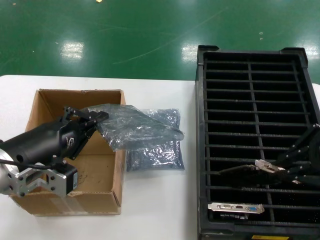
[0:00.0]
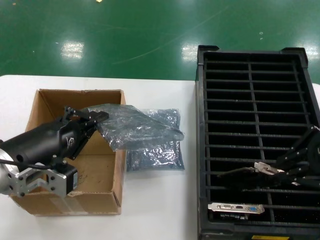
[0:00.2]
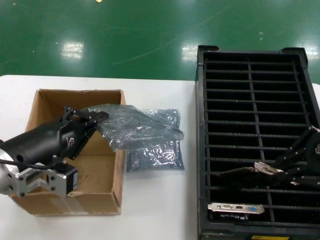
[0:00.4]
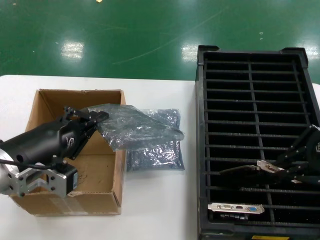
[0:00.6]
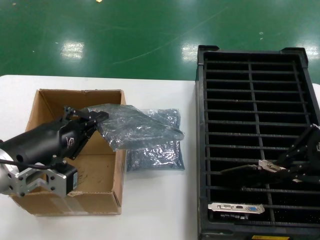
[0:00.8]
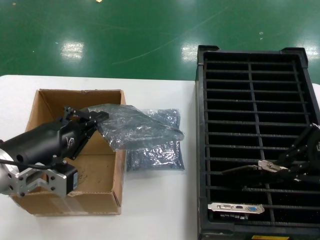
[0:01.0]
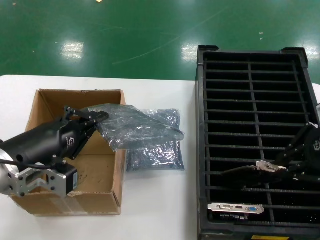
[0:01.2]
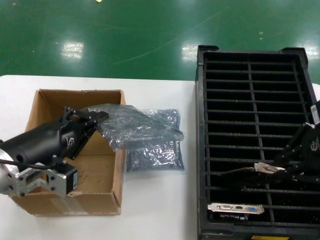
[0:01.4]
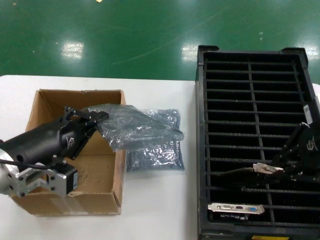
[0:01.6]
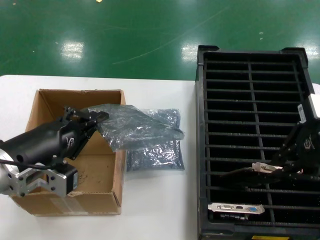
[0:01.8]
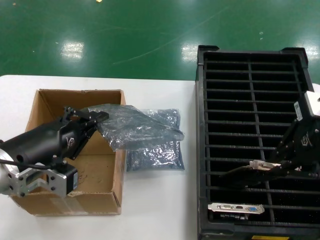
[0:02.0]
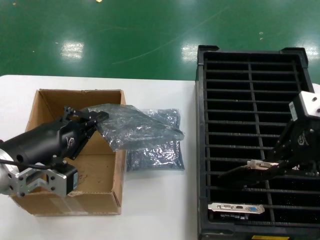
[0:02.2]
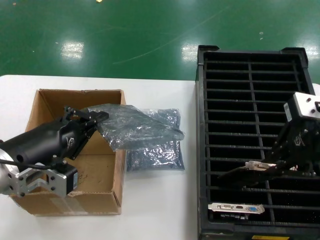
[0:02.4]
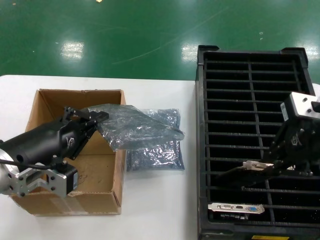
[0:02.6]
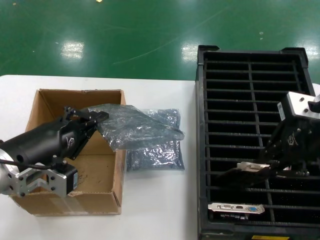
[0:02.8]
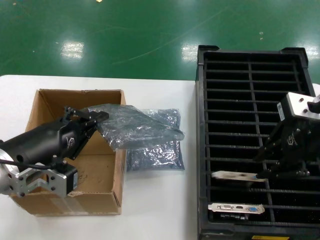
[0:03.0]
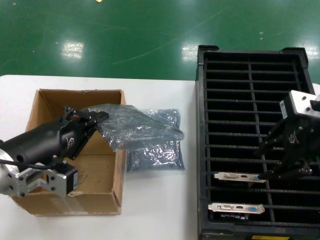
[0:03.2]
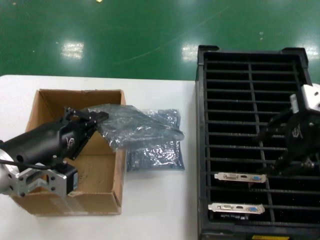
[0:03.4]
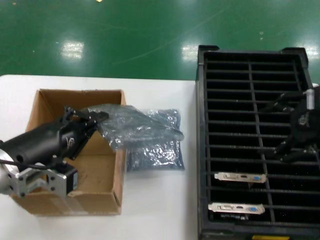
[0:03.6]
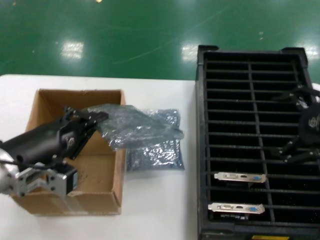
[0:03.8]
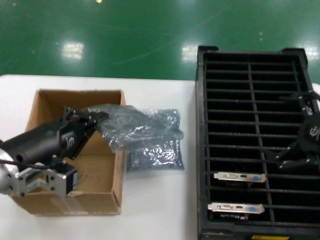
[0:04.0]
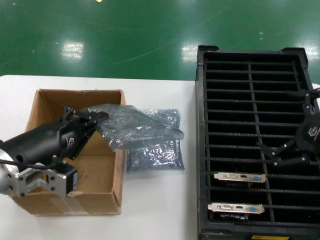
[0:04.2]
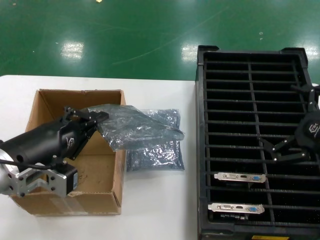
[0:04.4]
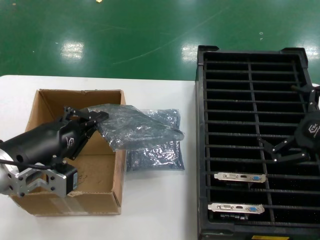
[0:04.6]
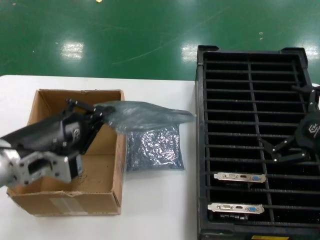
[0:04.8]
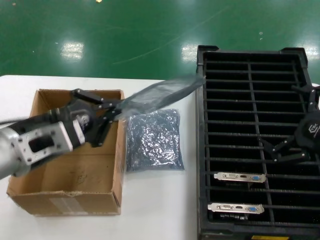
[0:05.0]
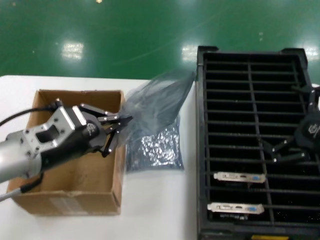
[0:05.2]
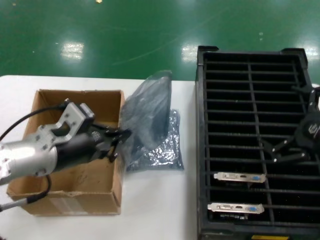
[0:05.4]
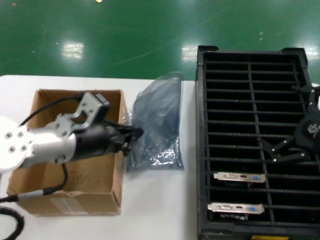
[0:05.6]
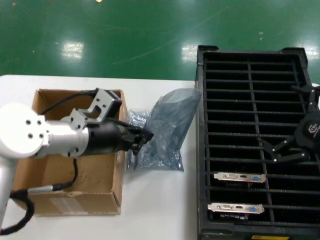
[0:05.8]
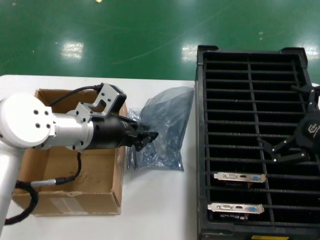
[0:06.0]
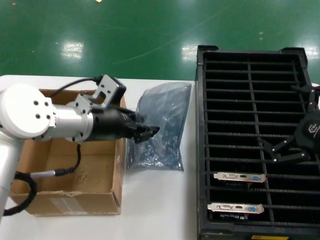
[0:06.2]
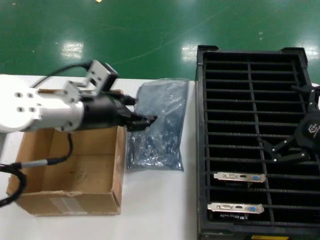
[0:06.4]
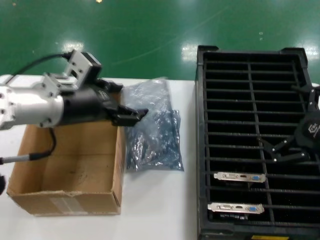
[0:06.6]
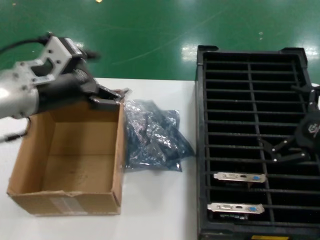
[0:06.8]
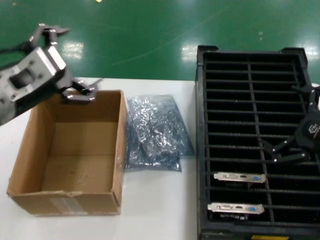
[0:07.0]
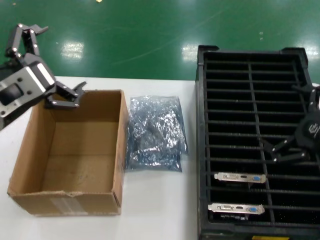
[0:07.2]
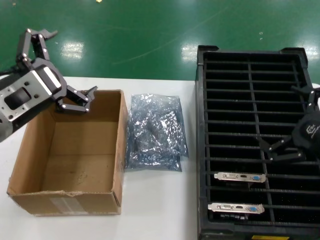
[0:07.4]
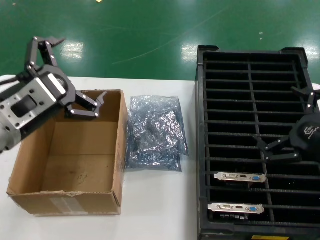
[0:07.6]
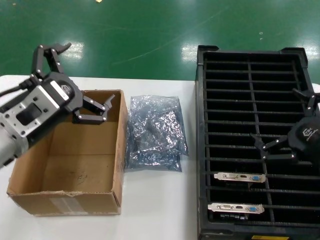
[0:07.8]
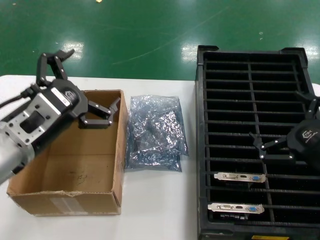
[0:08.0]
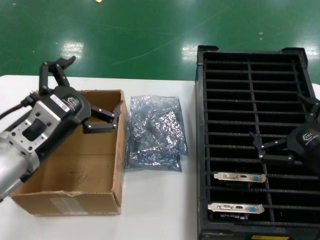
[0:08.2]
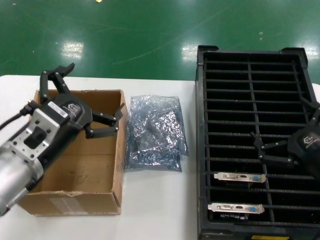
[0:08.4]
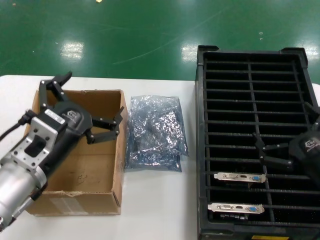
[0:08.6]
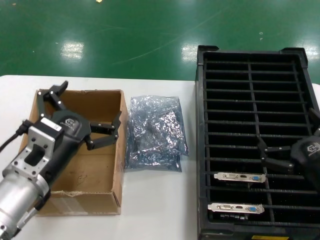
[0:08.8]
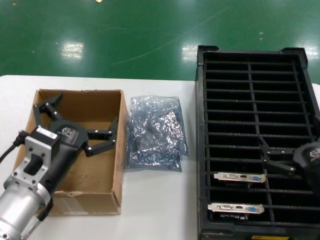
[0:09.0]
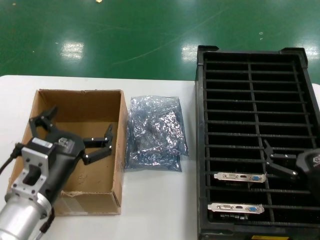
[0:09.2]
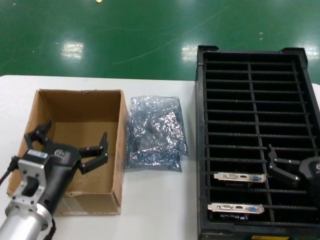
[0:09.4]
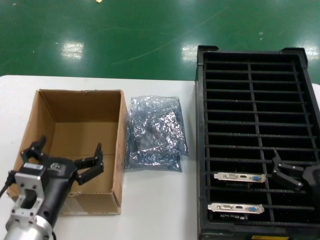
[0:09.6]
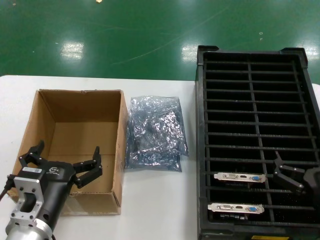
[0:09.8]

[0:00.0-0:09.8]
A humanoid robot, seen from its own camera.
Task of the whole recording: take out graphics card from box remove packaging put into black container.
Step, 0:00.0 to 0:03.6: Place the hard disk in the hard disk enclosure.
Step, 0:03.8 to 0:08.4: Place the down the bag.
0:00.0 to 0:01.4: There are only small adjustments of the hands.
0:01.4 to 0:02.8: The right hand changes place by roughly 5 cm.
0:02.8 to 0:04.2: The right hand travels downward, to the right and backward by about 15 cm.
0:04.2 to 0:05.6: The left hand goes about 10 cm forward.
0:05.6 to 0:07.0: The left hand heads upward and backward, covering about 10 cm.
0:07.0 to 0:08.4: The right hand goes roughly 5 cm downward, while the left hand travels downward by about 10 cm.
0:08.4 to 0:09.8: The left hand heads downward, covering roughly 15 cm. The right hand travels downward by some 10 cm.

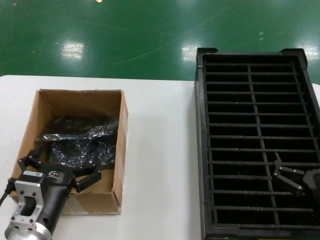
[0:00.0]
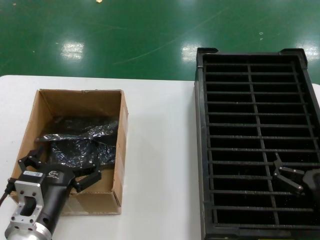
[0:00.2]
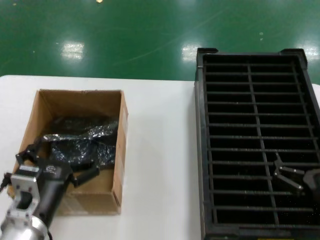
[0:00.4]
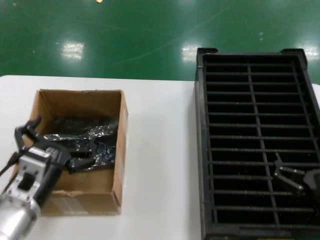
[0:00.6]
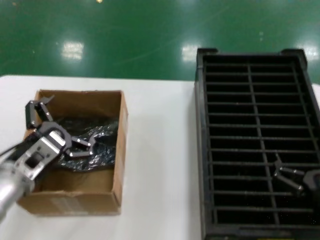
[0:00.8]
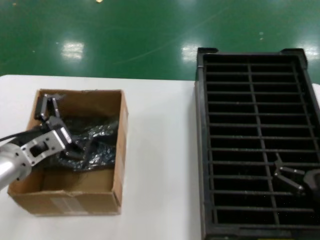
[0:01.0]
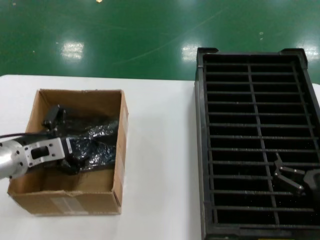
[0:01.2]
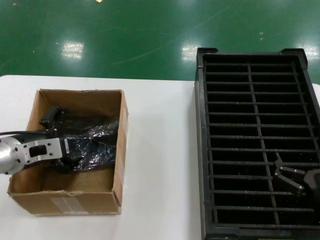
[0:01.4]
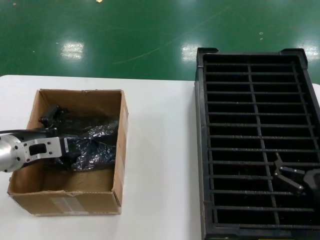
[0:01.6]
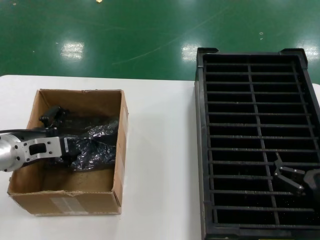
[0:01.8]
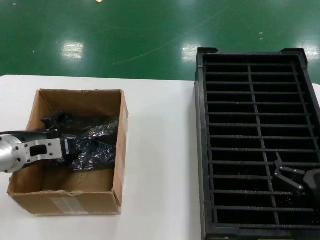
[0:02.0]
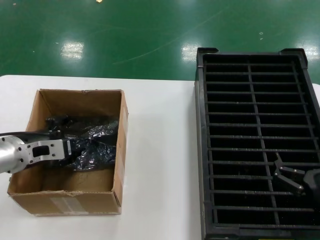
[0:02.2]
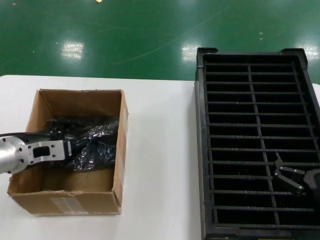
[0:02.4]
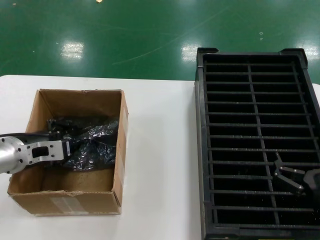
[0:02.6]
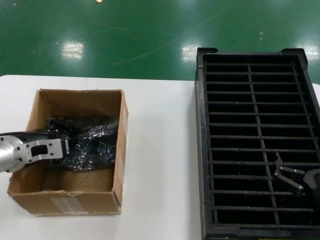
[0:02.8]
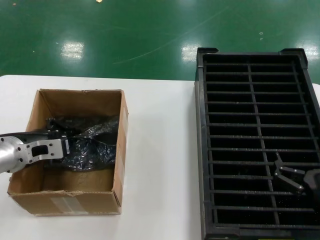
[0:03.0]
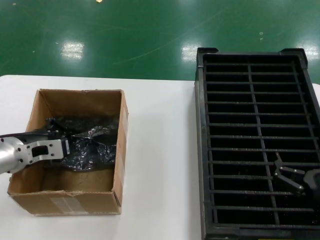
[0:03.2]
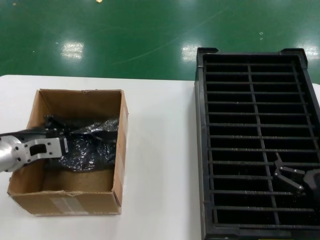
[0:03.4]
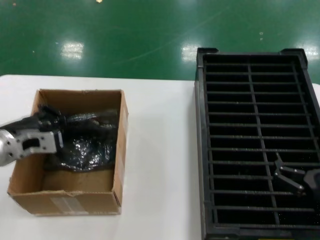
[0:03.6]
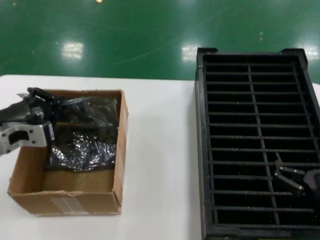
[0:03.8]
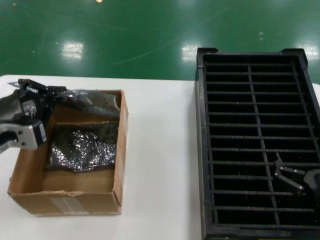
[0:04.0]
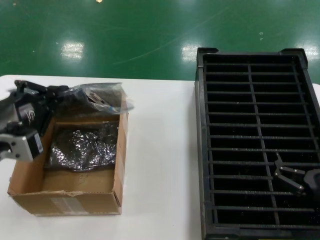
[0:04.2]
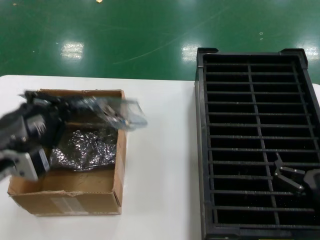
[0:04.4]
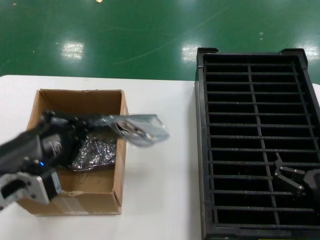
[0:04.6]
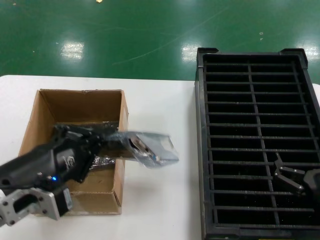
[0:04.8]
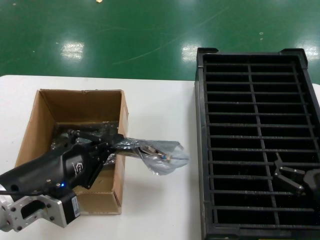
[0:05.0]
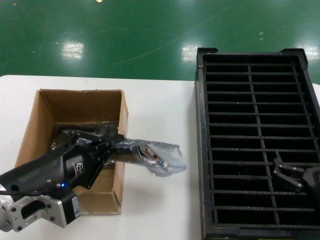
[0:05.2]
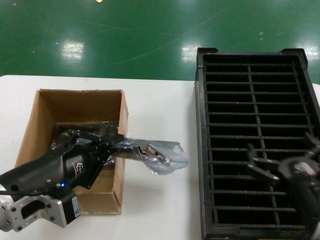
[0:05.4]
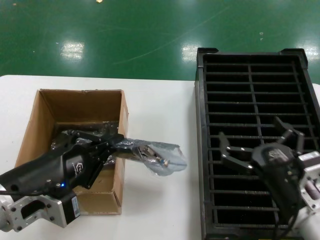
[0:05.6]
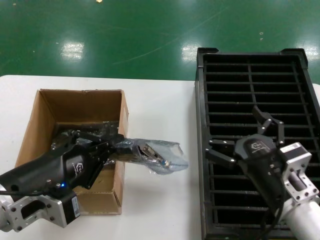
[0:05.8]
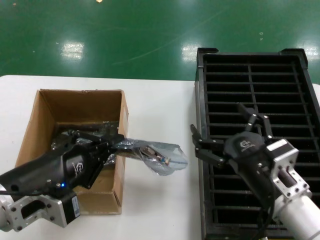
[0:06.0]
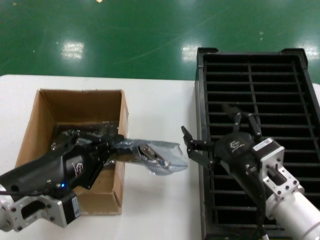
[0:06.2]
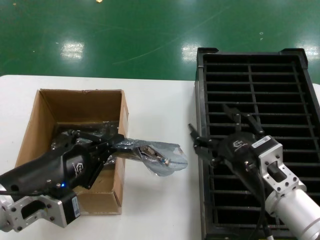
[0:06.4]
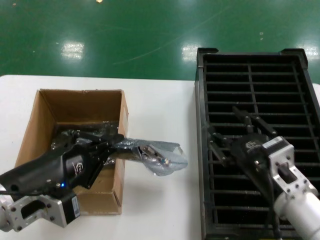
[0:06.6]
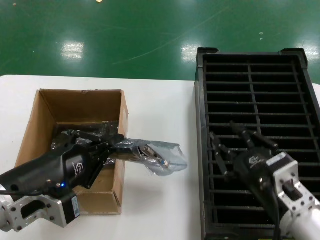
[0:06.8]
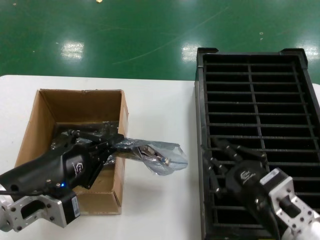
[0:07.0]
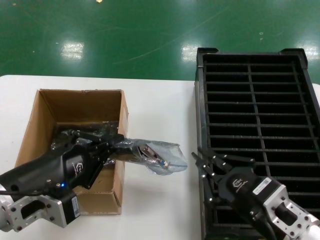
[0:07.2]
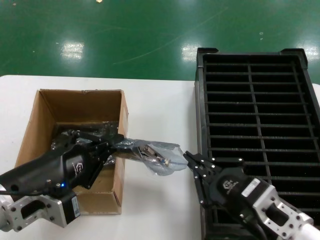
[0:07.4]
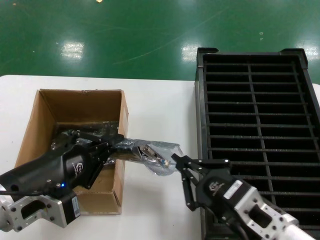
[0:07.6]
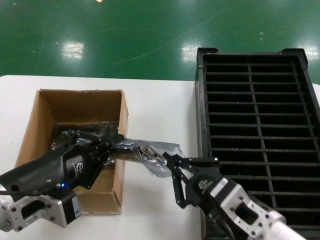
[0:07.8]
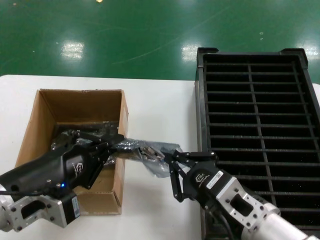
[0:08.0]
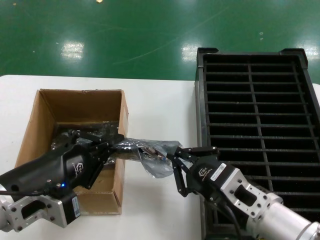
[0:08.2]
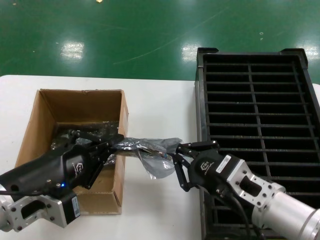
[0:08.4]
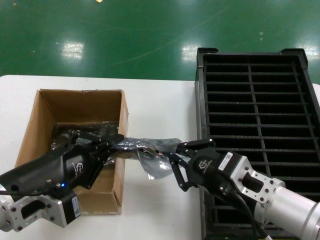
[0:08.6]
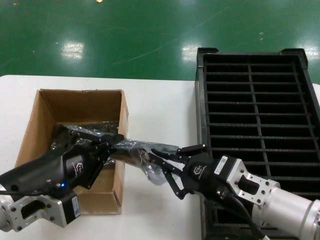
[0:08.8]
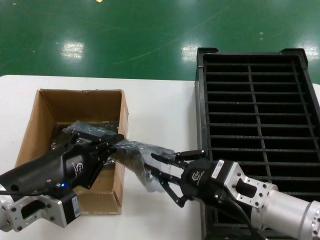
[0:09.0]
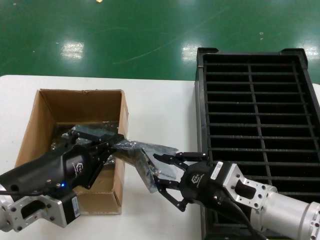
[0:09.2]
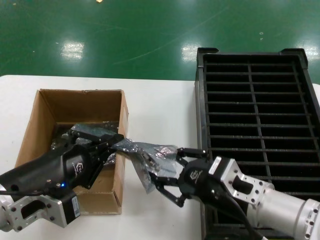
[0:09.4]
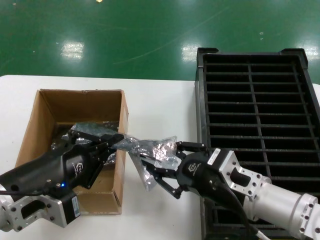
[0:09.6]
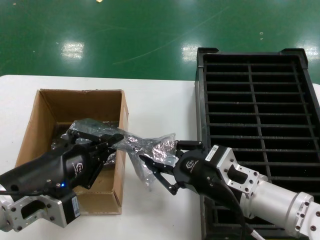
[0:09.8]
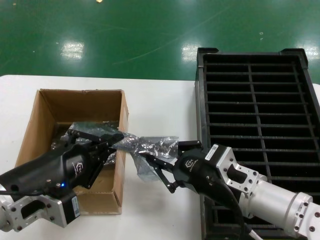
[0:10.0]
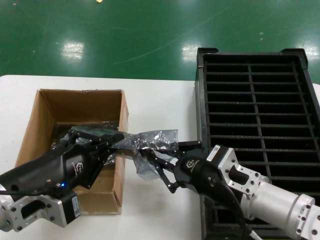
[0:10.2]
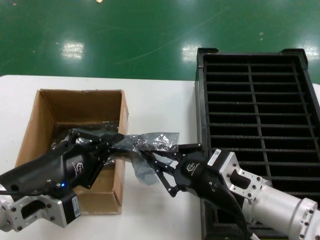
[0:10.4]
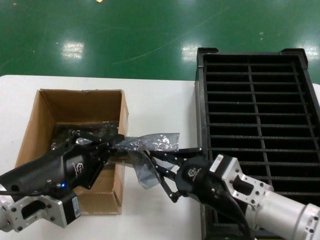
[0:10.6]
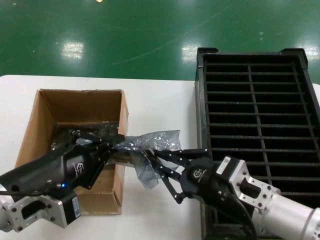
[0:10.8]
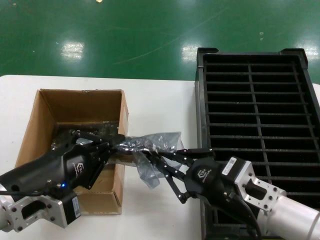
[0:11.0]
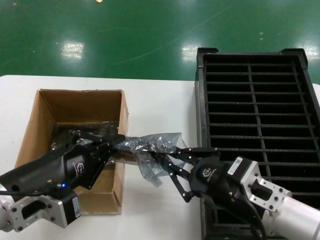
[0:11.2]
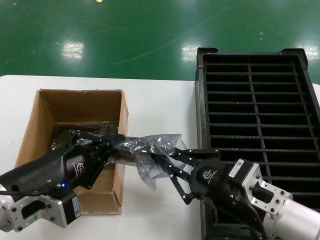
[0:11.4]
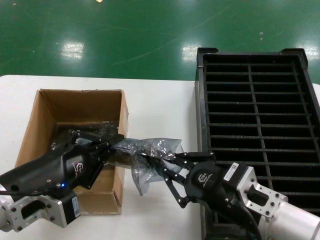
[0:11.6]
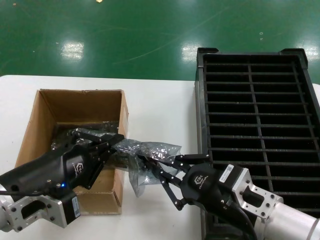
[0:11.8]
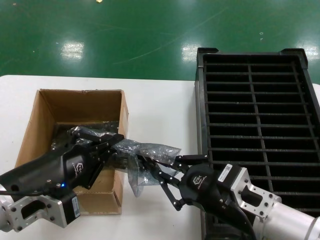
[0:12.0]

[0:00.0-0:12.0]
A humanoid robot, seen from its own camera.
Task of the whole recording: take out graphics card from box remove packaging put into black container.
Step, 0:00.0 to 0:03.4: Grasp the bag.
Step, 0:03.6 to 0:05.2: Lift the bag.
0:00.0 to 0:01.6: The left hand goes approximately 20 cm forward, to the left and upward.
0:01.6 to 0:03.0: The hands move only a little.
0:03.0 to 0:04.4: The left hand moves backward and upward, about 20 cm.
0:04.4 to 0:06.0: The left hand moves approximately 5 cm; the right hand heads to the left and upward, covering approximately 10 cm.
0:06.0 to 0:07.6: The right hand shifts some 5 cm backward.
0:07.6 to 0:09.0: The right hand is displaced forward by roughly 5 cm.
0:09.0 to 0:12.0: There are only small adjustments of the hands.
